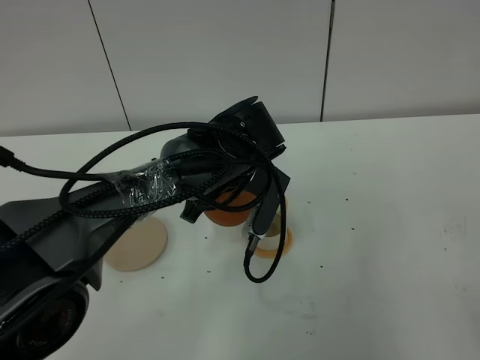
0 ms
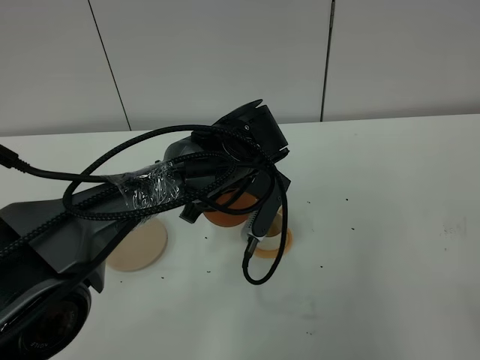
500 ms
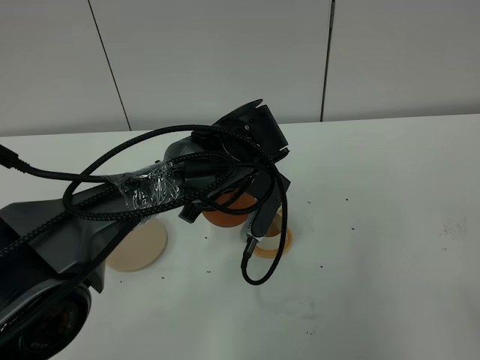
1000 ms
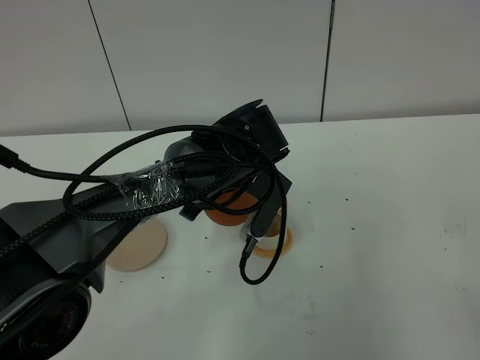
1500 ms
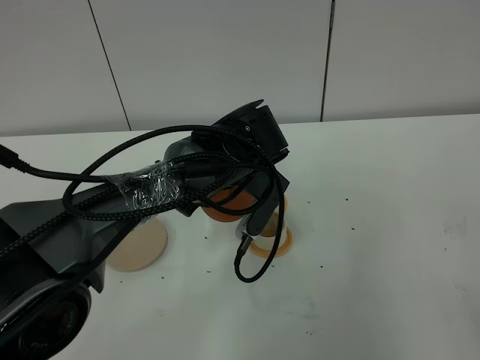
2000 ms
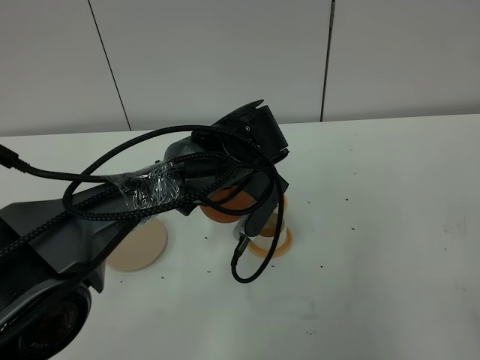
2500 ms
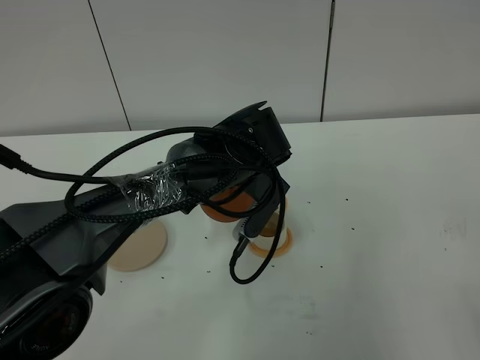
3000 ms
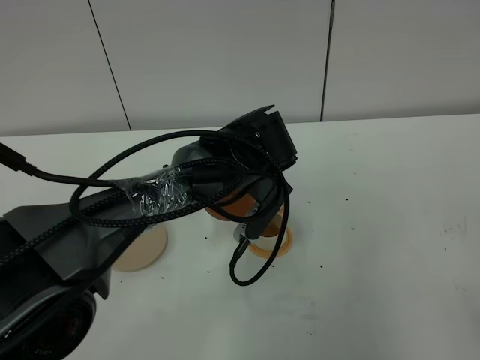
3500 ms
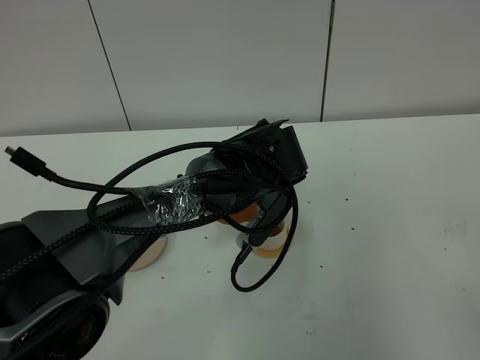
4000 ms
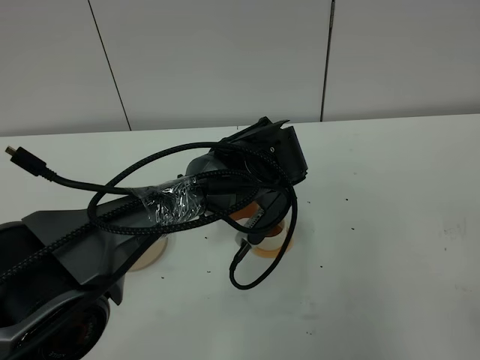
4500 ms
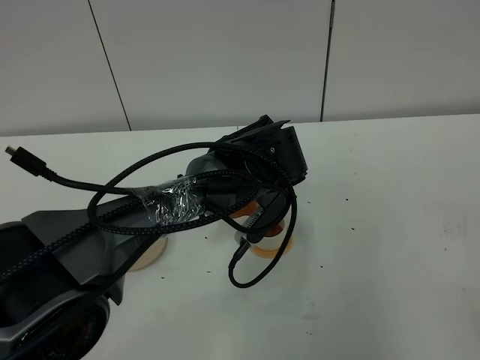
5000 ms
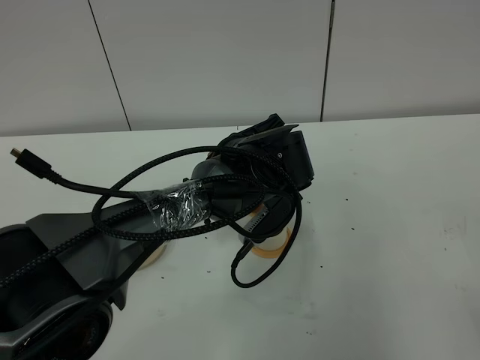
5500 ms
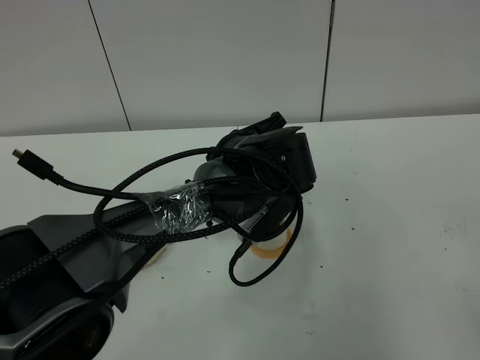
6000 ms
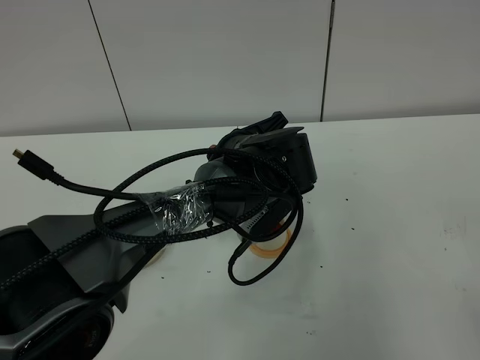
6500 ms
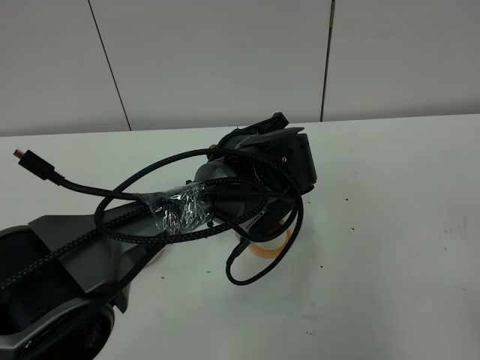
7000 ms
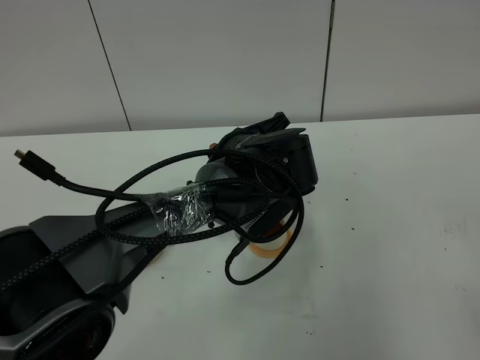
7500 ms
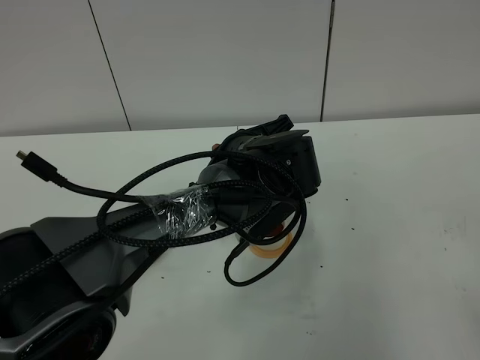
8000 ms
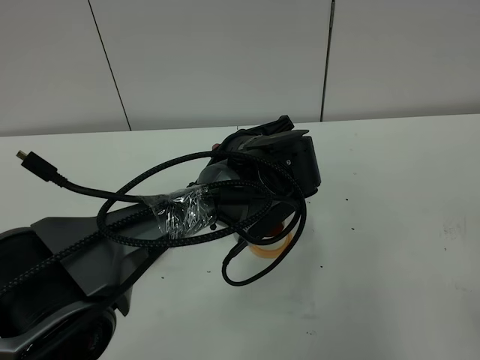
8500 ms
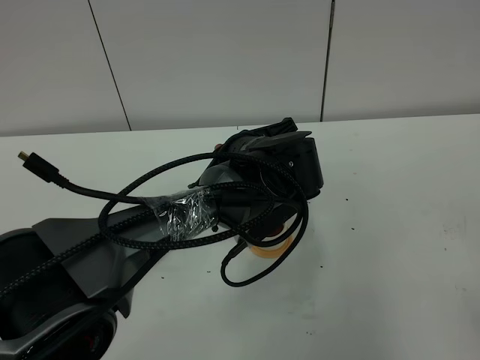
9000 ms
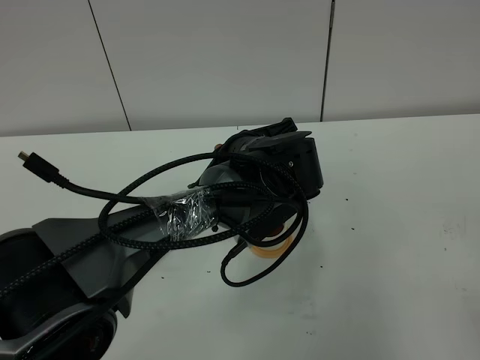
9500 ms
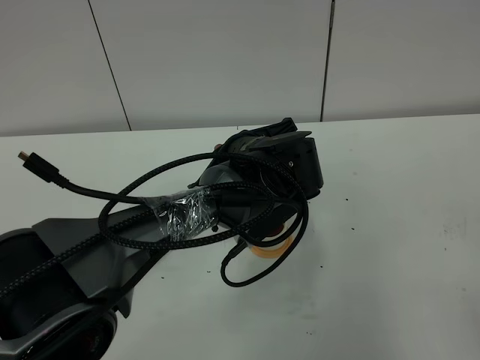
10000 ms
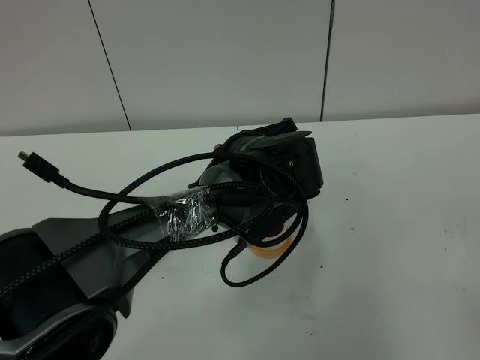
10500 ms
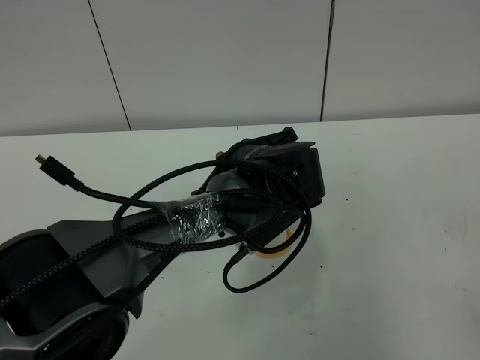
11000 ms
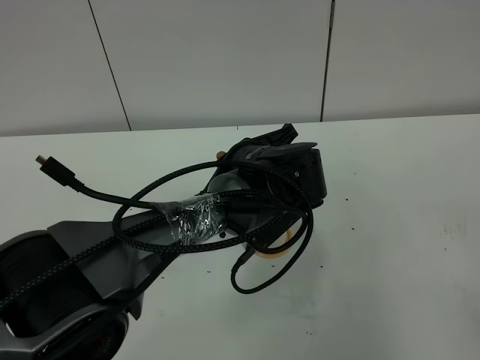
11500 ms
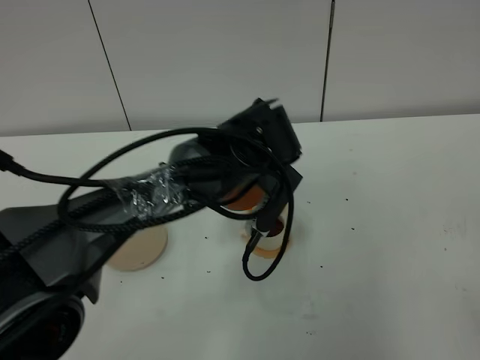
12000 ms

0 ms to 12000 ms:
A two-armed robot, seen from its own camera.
Task of the whole recording: grasp the brown teapot and pour the tea into the two white teacups one by one, put the brown teapot back in its original place.
0 ms to 4000 ms: The grippers make only small movements.
4000 ms to 6000 ms: The grippers make only small movements.
6000 ms to 8000 ms: The two grippers keep their place.
8000 ms to 10000 ms: Both grippers stay put.

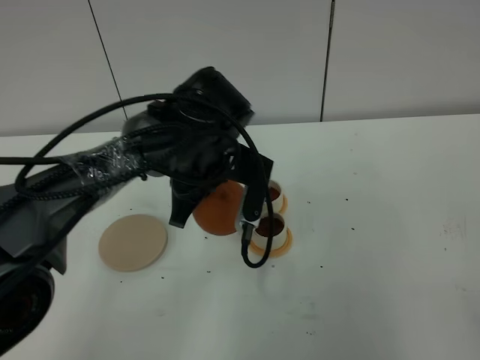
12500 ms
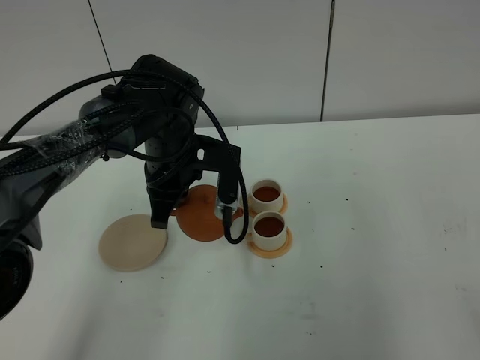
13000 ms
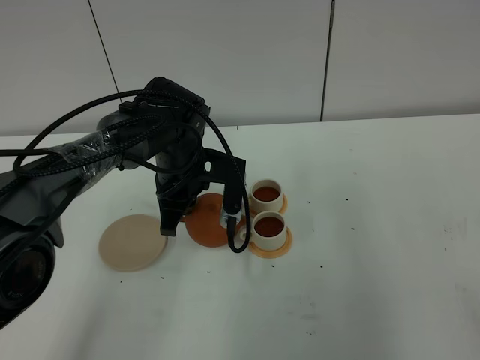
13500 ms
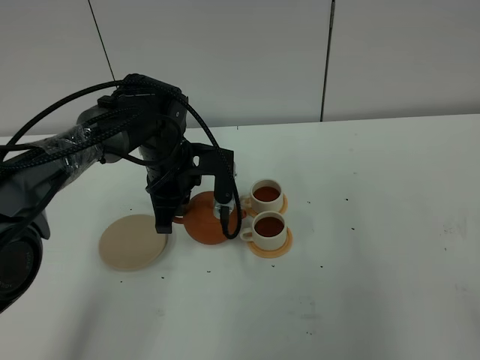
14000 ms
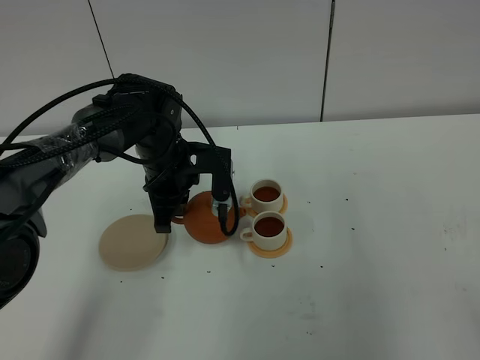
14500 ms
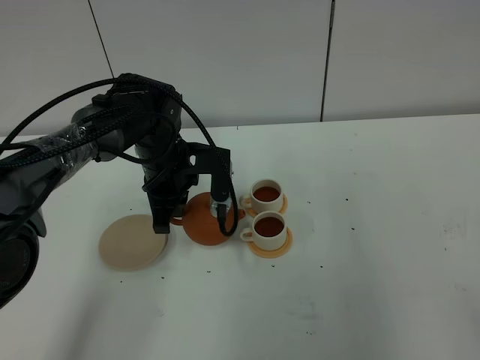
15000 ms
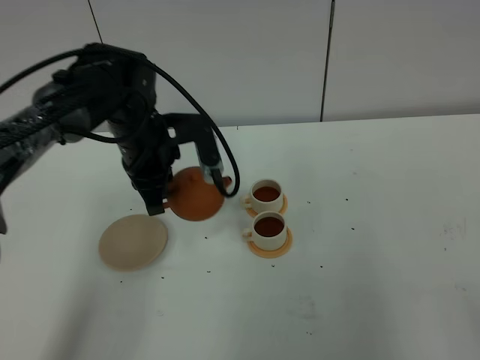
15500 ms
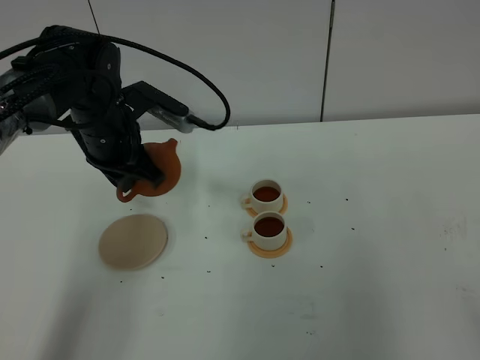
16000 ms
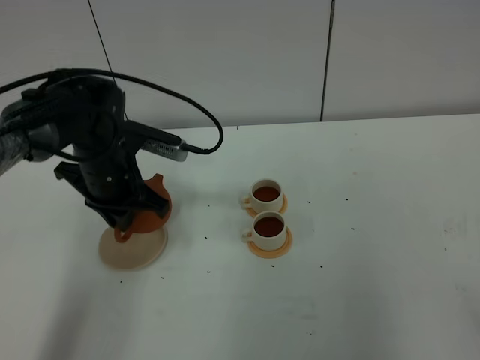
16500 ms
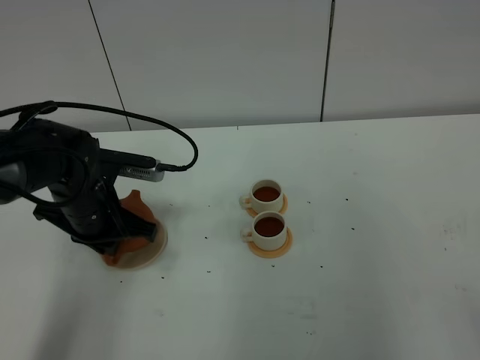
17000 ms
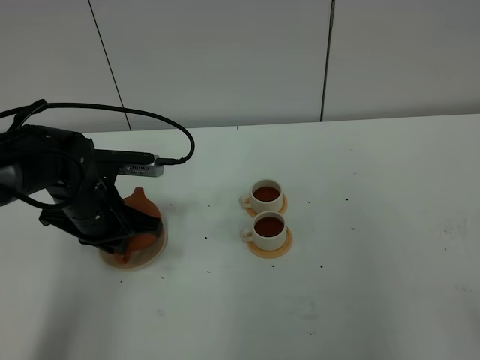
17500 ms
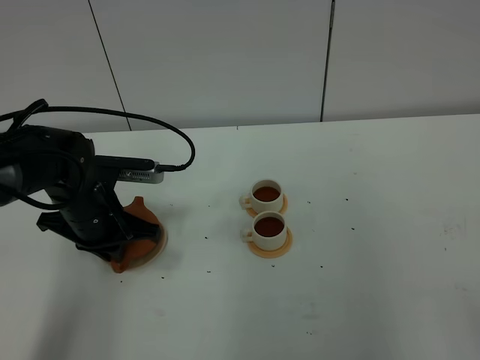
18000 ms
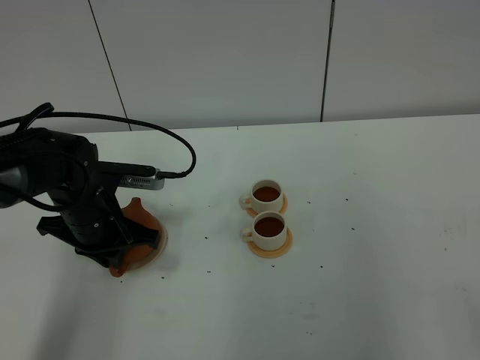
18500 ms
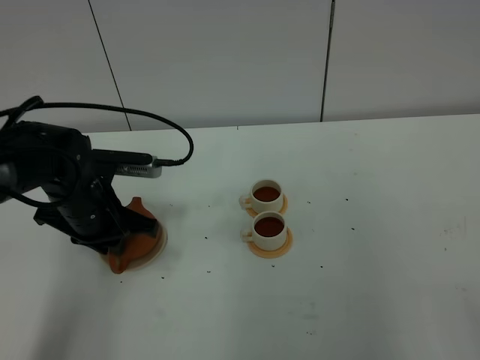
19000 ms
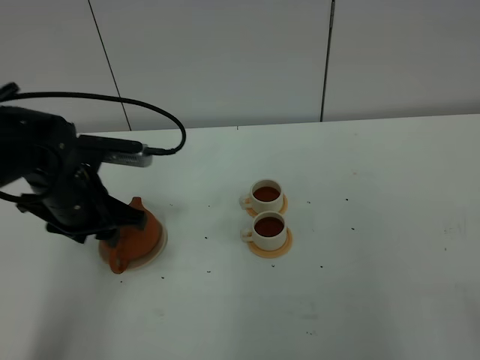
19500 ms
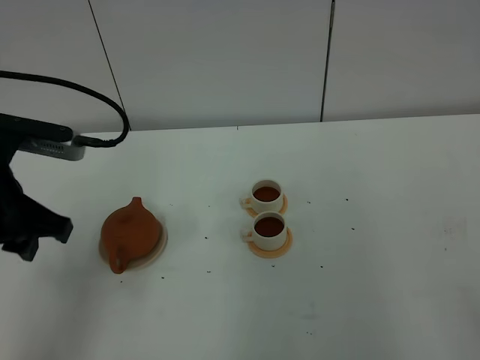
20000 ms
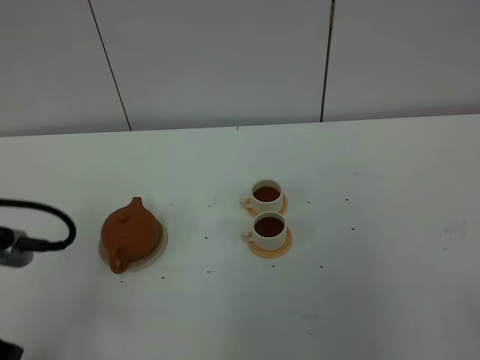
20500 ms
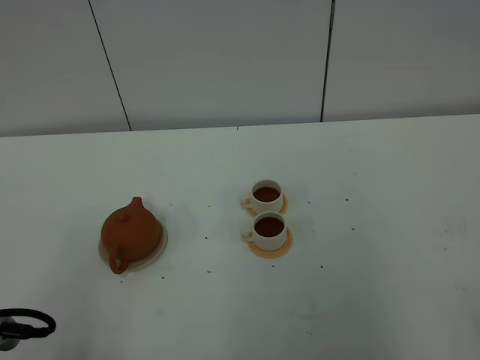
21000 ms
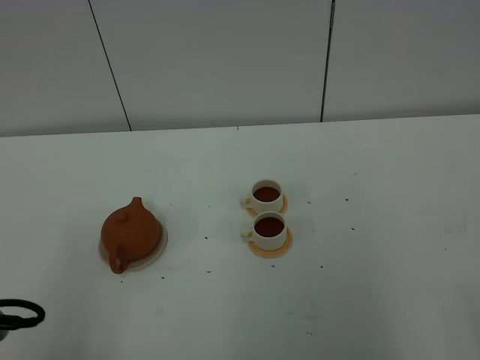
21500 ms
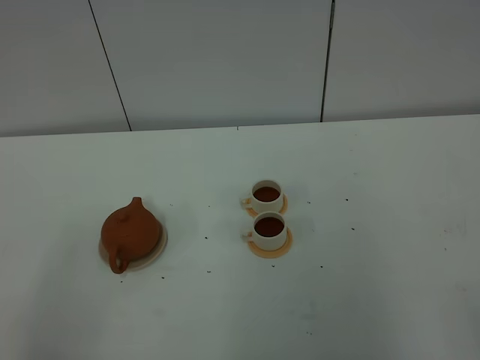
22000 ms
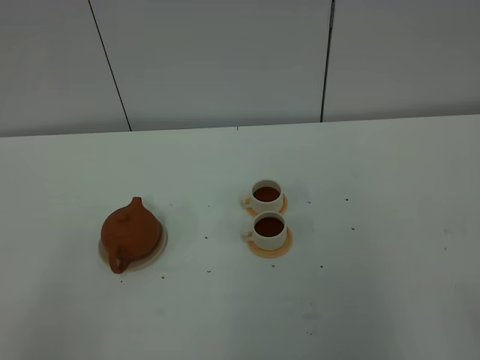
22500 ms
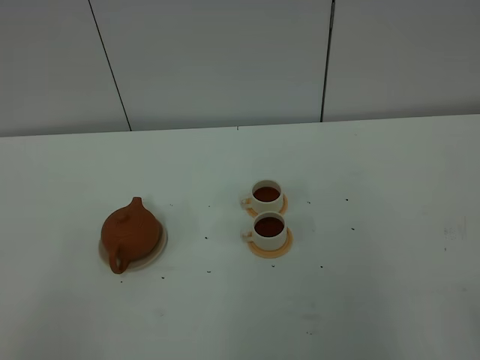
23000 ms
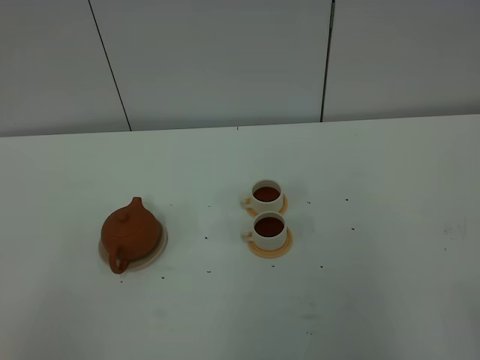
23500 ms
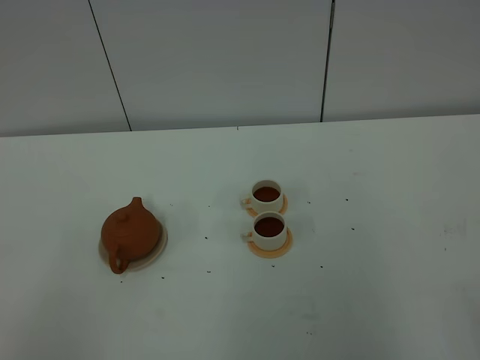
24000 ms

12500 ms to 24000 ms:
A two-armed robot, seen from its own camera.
Task of the whole recording: grasp the brown teapot and pour the tea into the two white teacups one by one, put the brown teapot back in its original place.
12500 ms to 14500 ms: The left gripper goes approximately 5 cm to the left.
14500 ms to 16500 ms: The left gripper travels to the left by about 5 cm.
16500 ms to 18500 ms: The left gripper moves approximately 5 cm.
18500 ms to 20000 ms: The left gripper heads upward and backward, covering about 20 cm, and opens its fingers.
20000 ms to 22000 ms: The left gripper heads backward, covering roughly 20 cm.

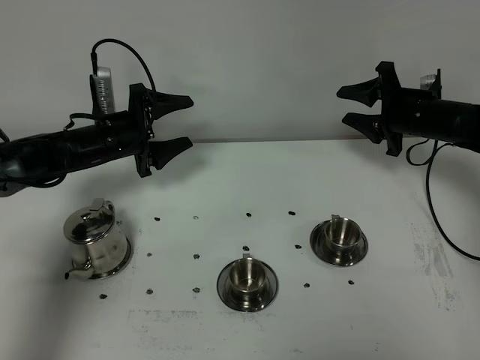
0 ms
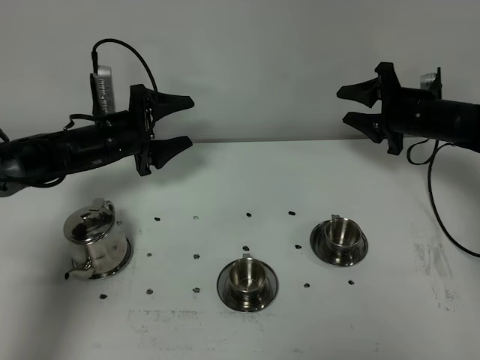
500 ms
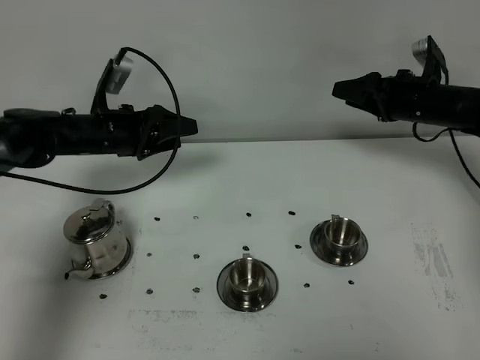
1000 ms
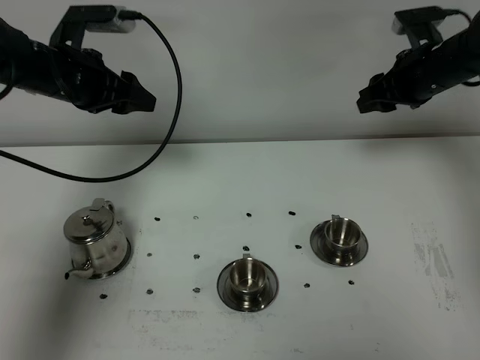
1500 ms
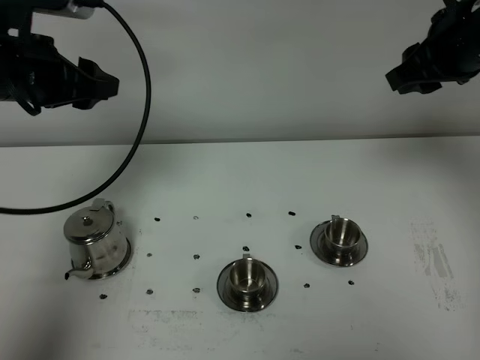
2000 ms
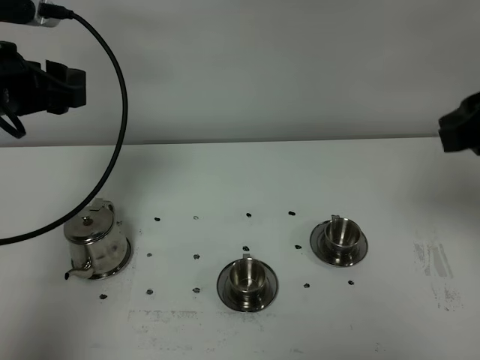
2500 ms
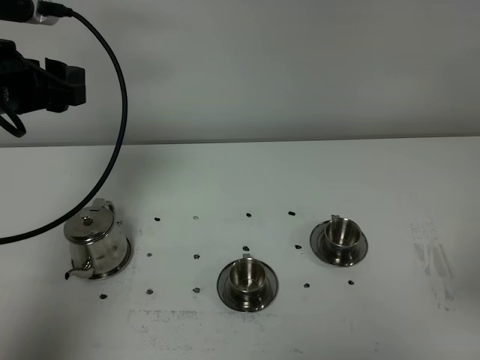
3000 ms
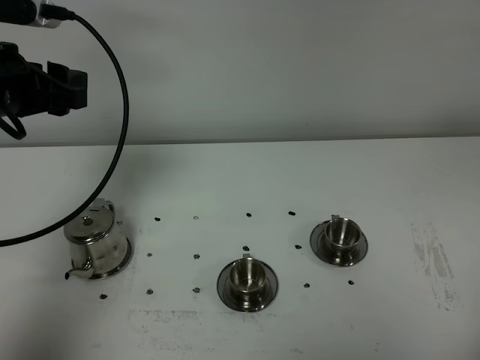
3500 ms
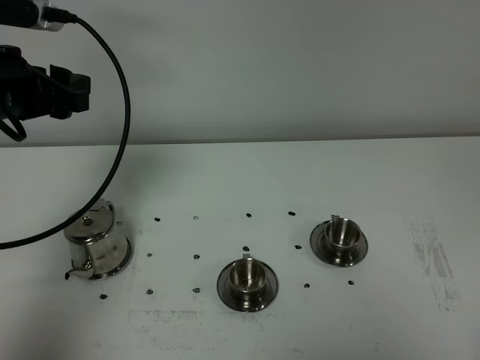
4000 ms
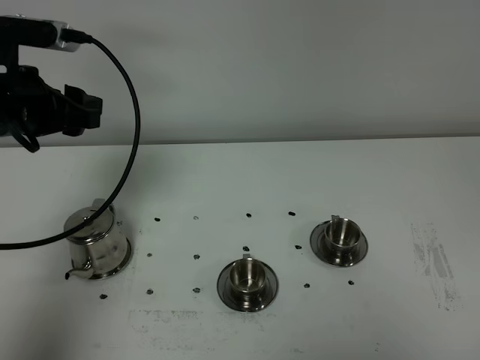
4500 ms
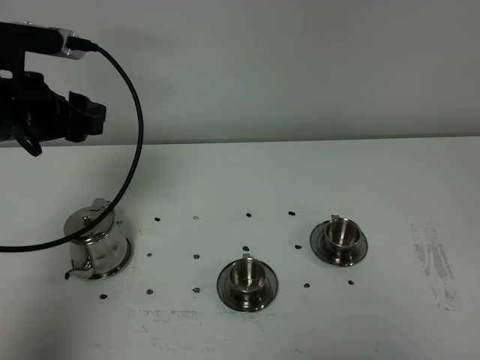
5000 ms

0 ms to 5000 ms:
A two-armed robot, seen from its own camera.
Task of the whole recording: grasp the stainless steel teapot and pour the tea into the two stainless steel teacups one by one, put the stainless steel teapot back in its original place.
0 ms to 2500 ms: The left gripper is displaced upward and backward by approximately 25 cm. Meanwhile the right gripper moves backward and upward, approximately 35 cm, and closes its fingers.
2500 ms to 5000 ms: The right gripper shifts approximately 25 cm backward, and closes.
